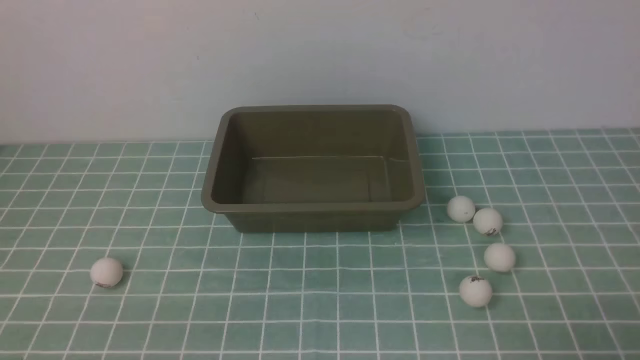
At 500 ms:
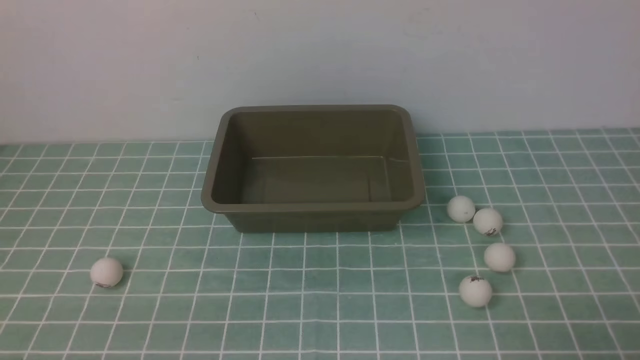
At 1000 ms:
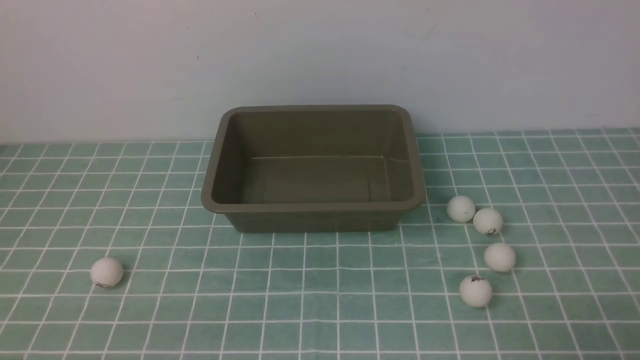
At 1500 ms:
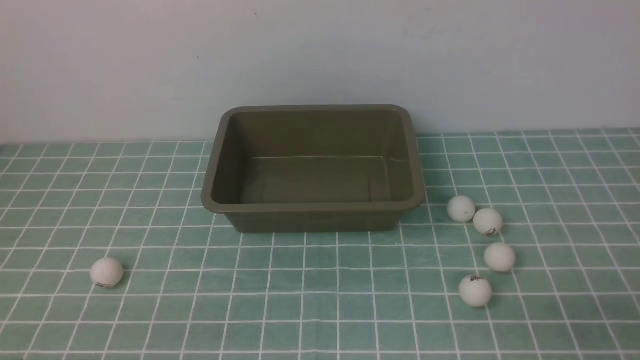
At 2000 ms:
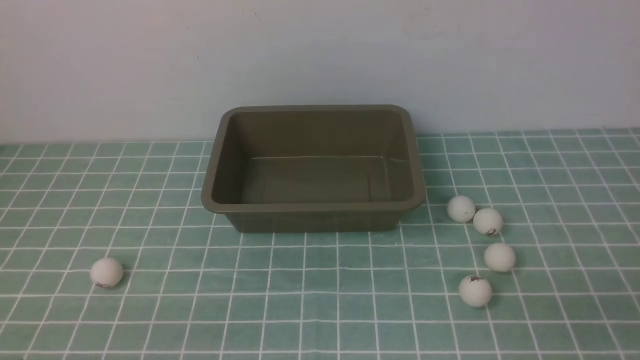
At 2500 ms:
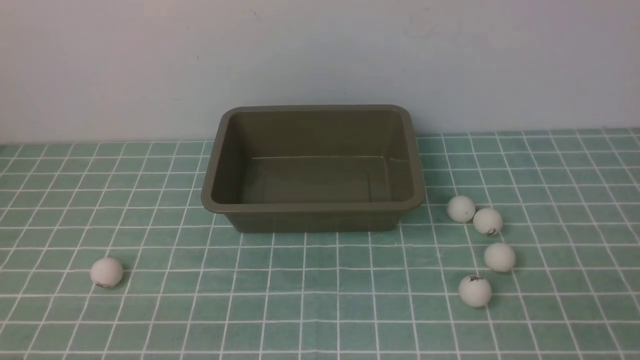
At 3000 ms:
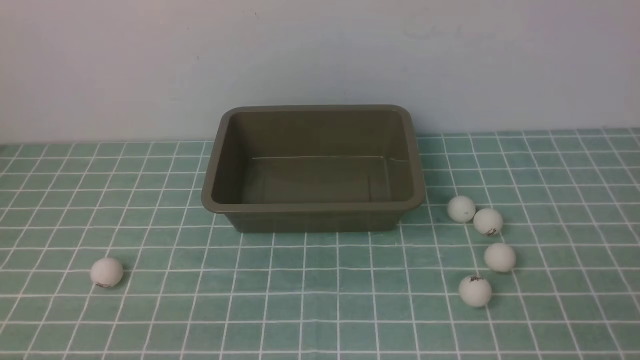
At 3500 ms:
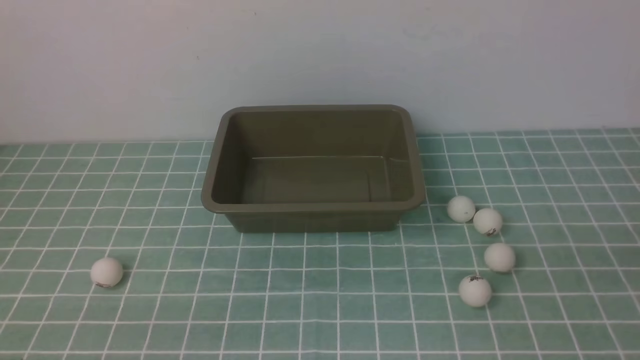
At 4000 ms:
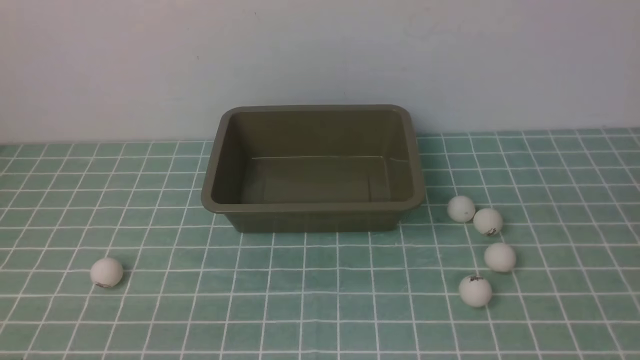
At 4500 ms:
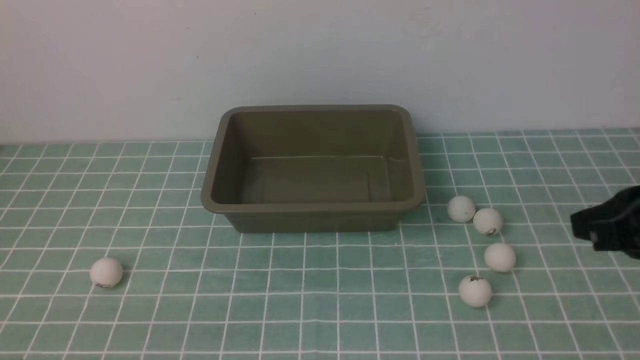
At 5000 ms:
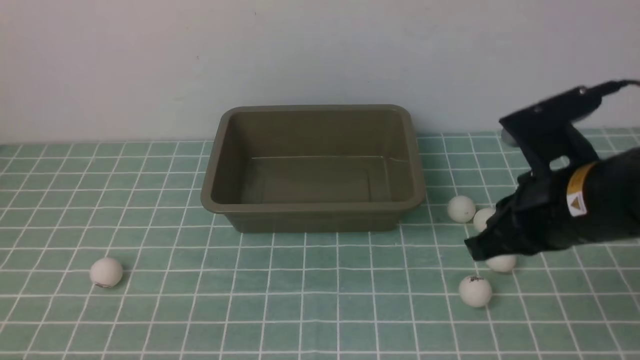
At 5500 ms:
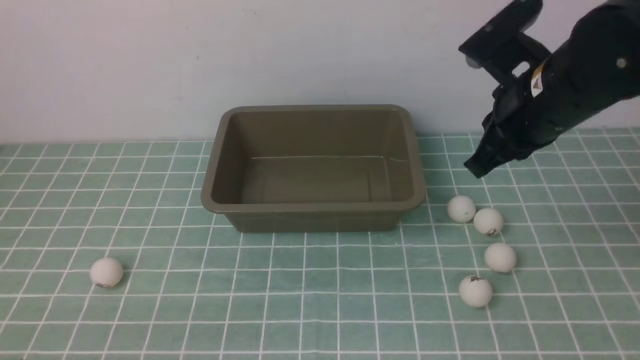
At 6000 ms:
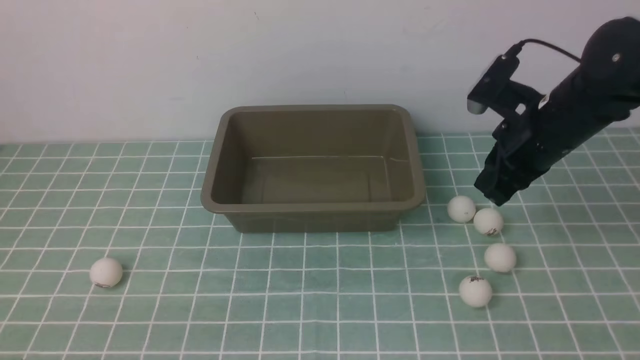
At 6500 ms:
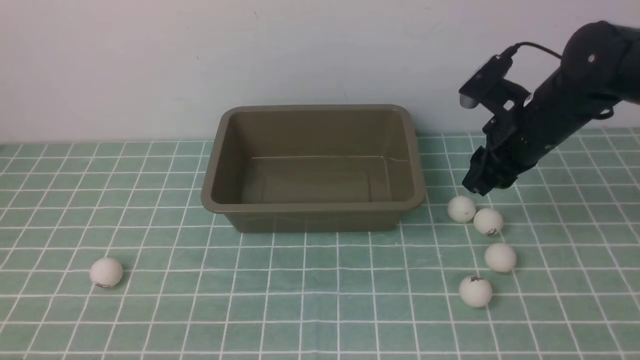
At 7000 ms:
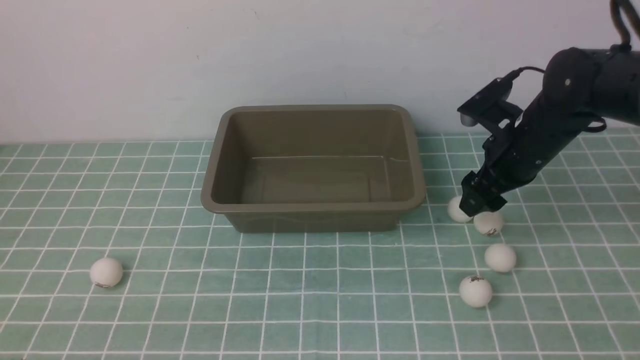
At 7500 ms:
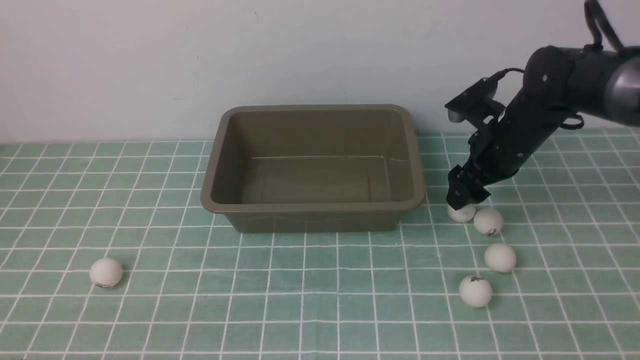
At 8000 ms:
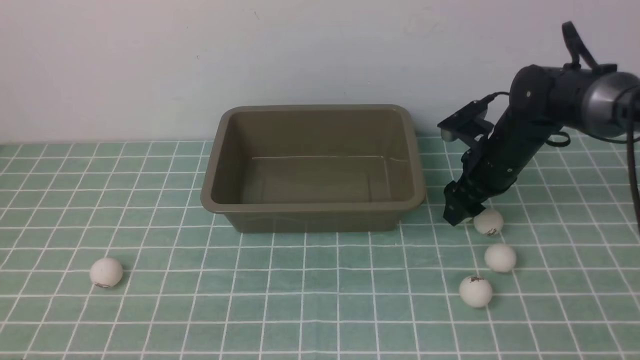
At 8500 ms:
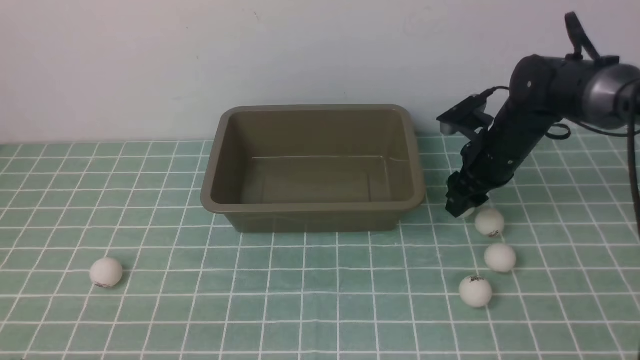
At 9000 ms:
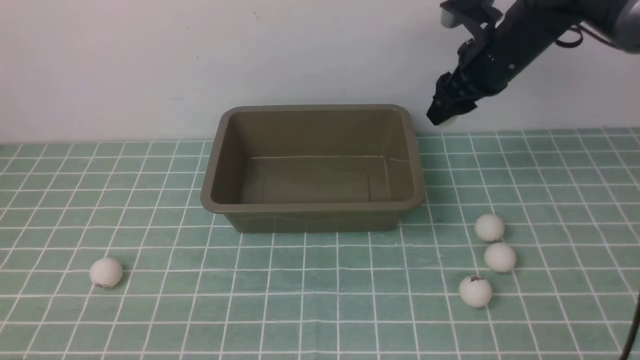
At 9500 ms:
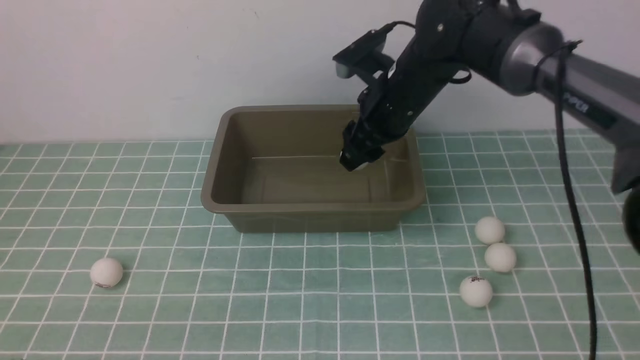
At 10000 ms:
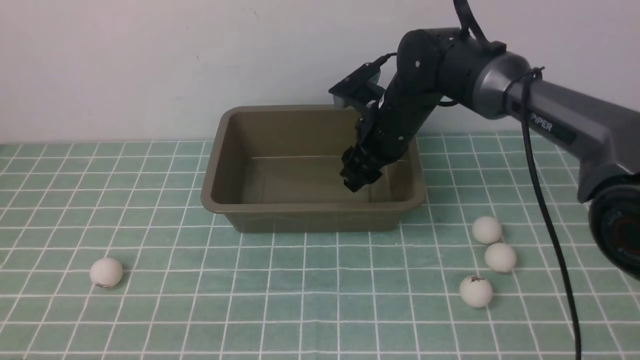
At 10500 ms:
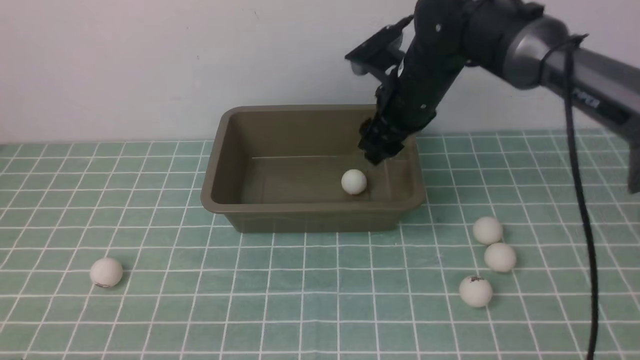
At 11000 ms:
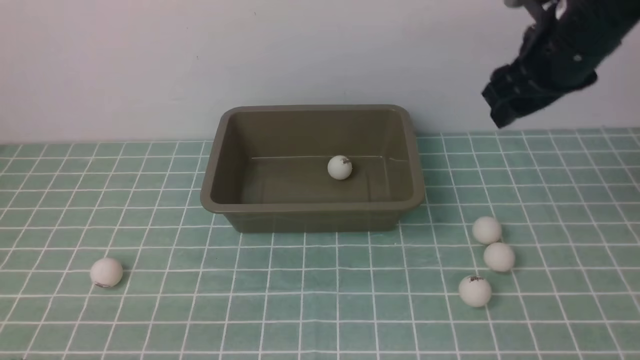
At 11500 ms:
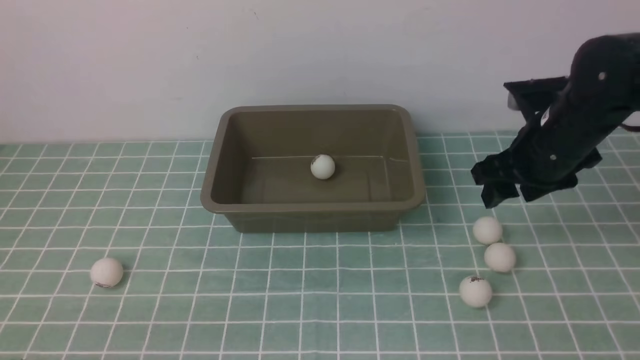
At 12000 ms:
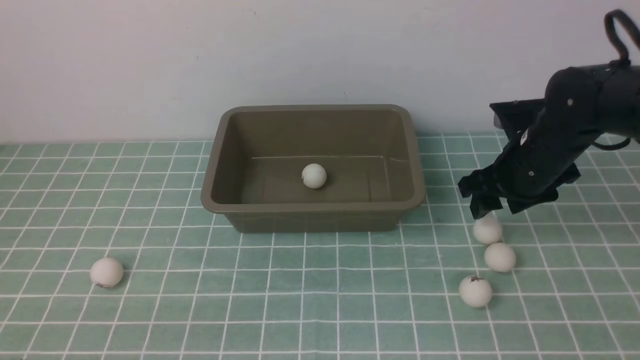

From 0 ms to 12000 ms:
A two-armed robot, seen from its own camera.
Step, from 0 ms to 8500 ms: use the right arm to clamp the table tennis ball closest to it.
Step, from 9000 ms to 10000 ms: use the right arm to put the table tennis ball into the box.
From 4000 ms to 6000 ms: The right gripper is displaced forward and downward by approximately 25 cm.
From 6000 ms to 8000 ms: The right gripper goes roughly 5 cm forward, and opens its fingers.
From 8000 ms to 10000 ms: The right gripper goes approximately 15 cm to the left.
From 10000 ms to 12000 ms: The right gripper moves to the right, approximately 15 cm.

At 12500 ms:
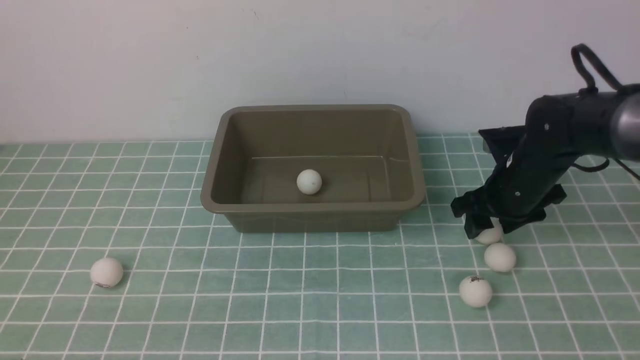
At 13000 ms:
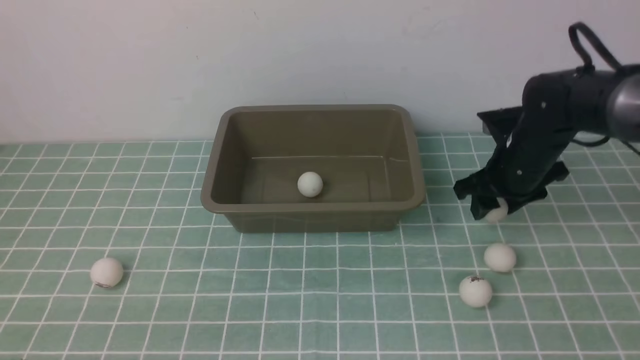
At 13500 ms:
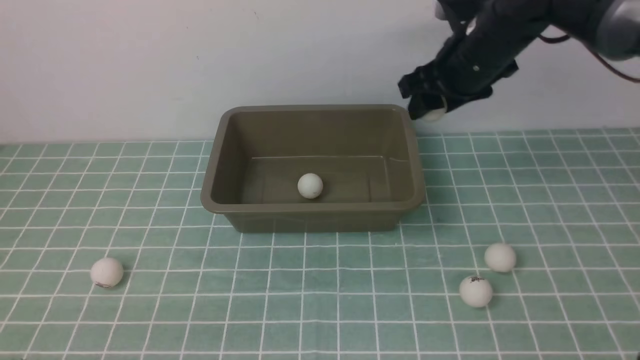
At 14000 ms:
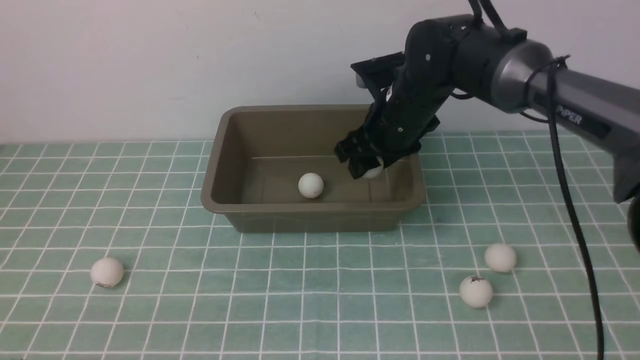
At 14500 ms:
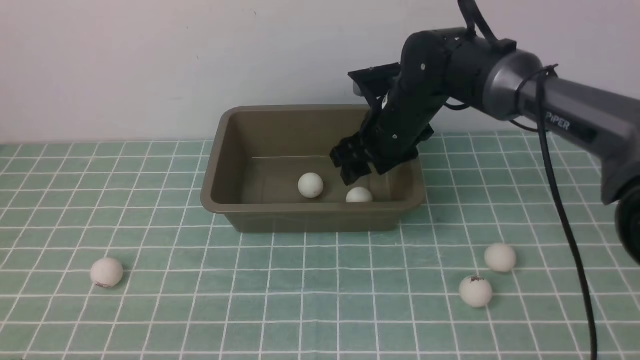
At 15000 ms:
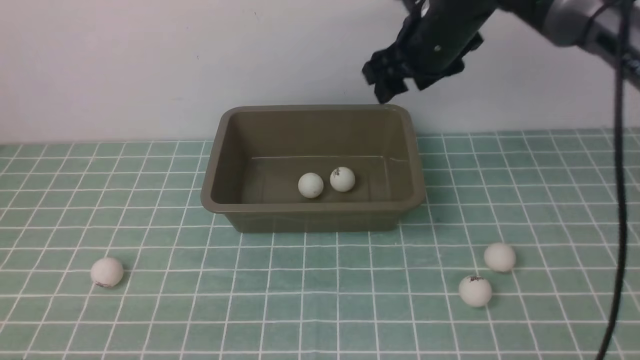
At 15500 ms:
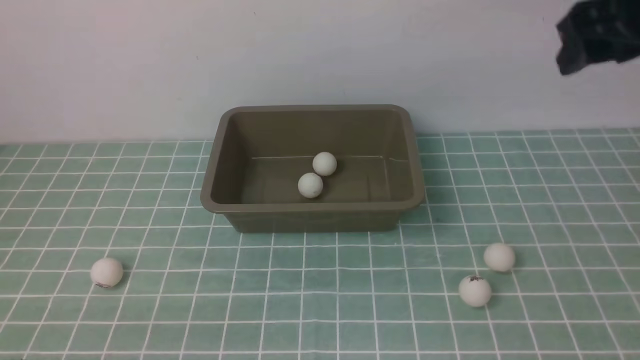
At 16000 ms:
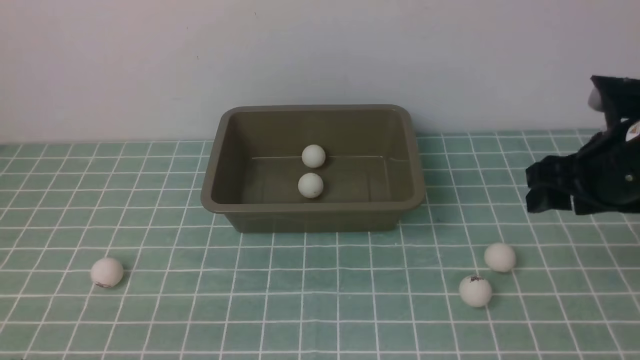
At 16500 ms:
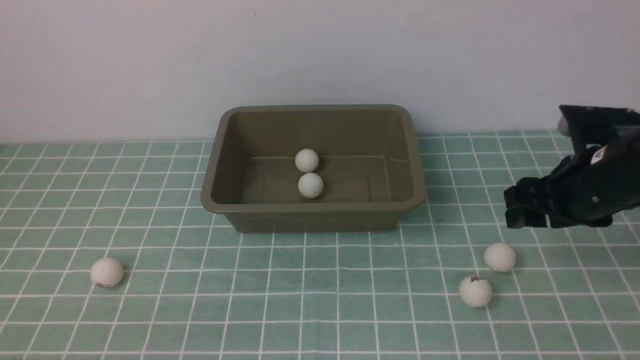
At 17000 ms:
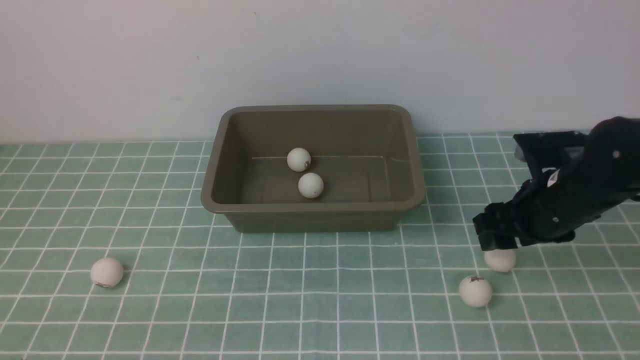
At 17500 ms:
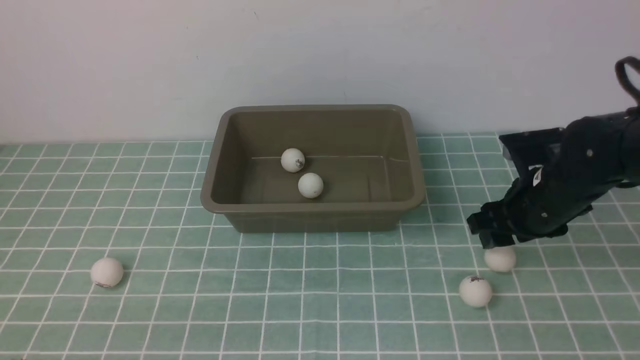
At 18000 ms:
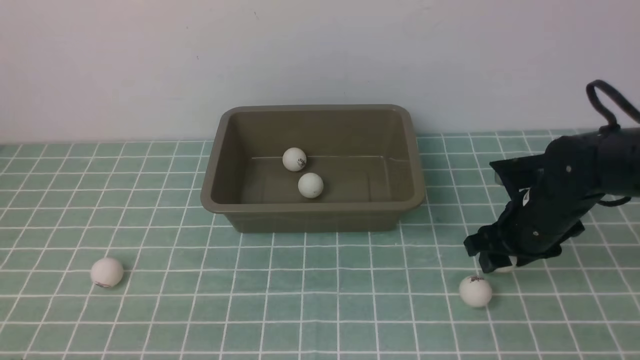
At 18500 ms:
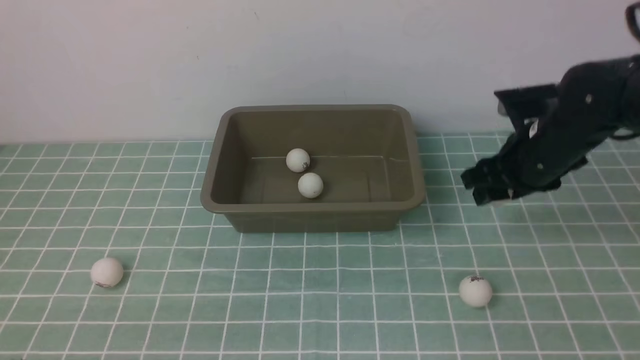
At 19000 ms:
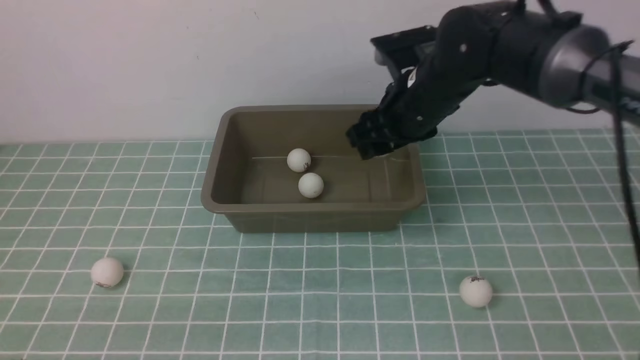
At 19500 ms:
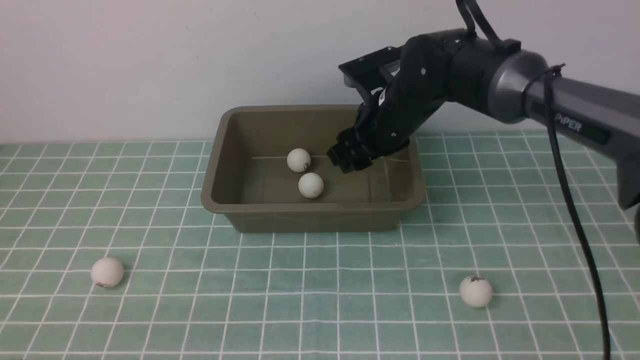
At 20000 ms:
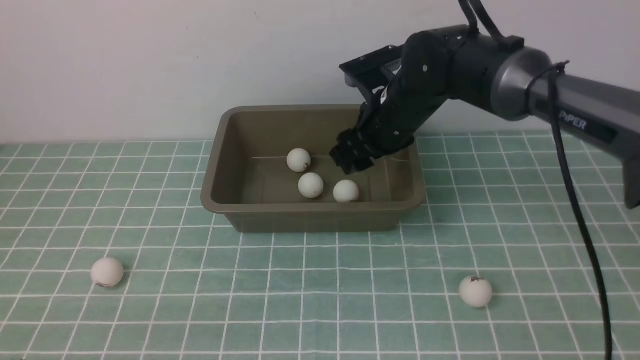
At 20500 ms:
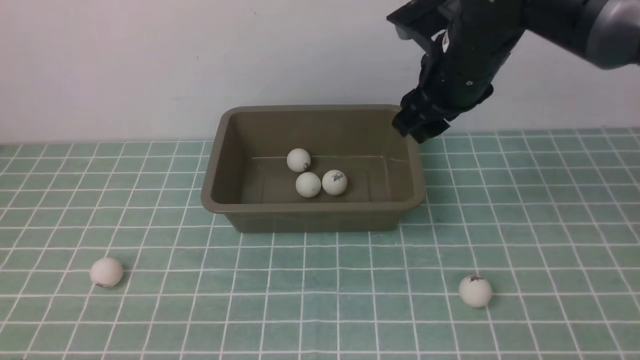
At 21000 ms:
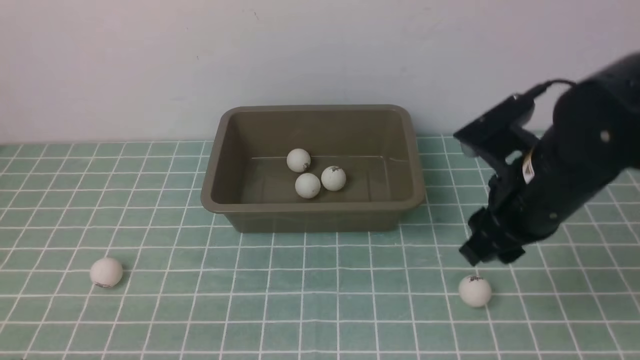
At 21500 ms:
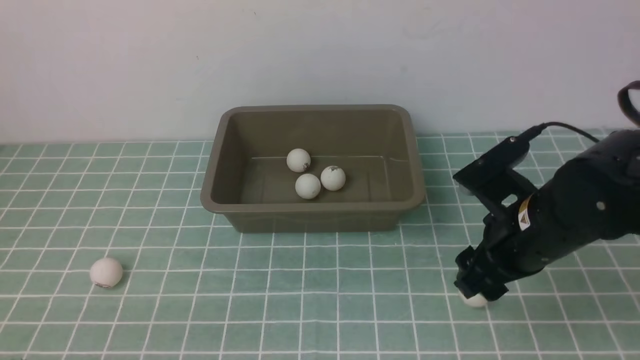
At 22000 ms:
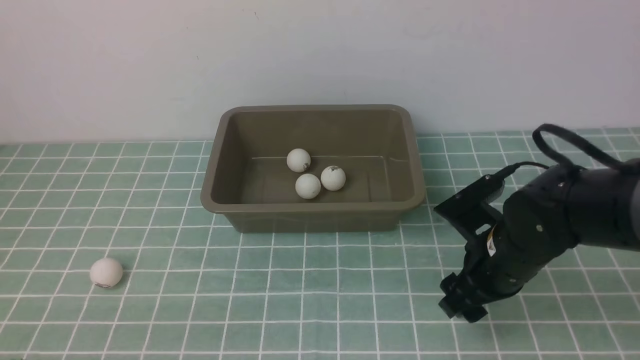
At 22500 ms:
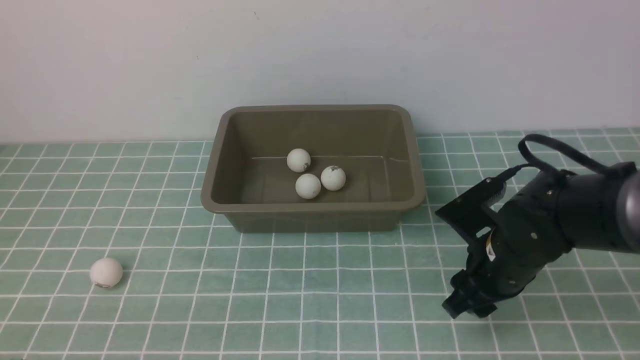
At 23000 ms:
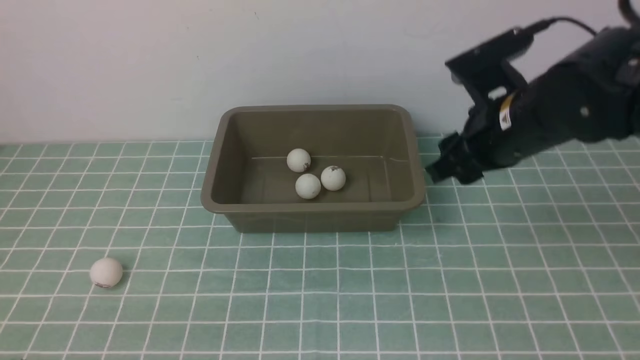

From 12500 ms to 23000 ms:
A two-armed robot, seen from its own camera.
Step, from 13500 ms to 14500 ms: use the right arm to put the table tennis ball into the box.
Step, from 15000 ms to 18500 ms: use the right arm to clamp the table tennis ball closest to it.
Step, from 19000 ms to 19500 ms: use the right arm to put the table tennis ball into the box.
Step, from 20000 ms to 22500 ms: use the right arm to clamp the table tennis ball closest to it.
From 12500 ms to 14500 ms: The right gripper travels to the left and upward by some 20 cm.
From 14500 ms to 16500 ms: The right gripper travels to the right, backward and downward by approximately 20 cm.
From 16500 ms to 19000 ms: The right gripper travels to the left, forward and upward by roughly 15 cm.
From 19000 ms to 21000 ms: The right gripper shifts some 15 cm backward and to the right.
From 21000 ms to 23000 ms: The right gripper travels forward by about 5 cm, and goes downward and returns, some 10 cm each way.
